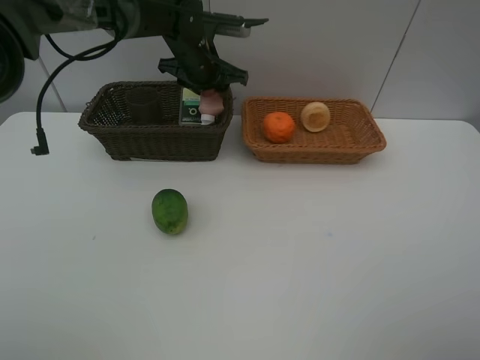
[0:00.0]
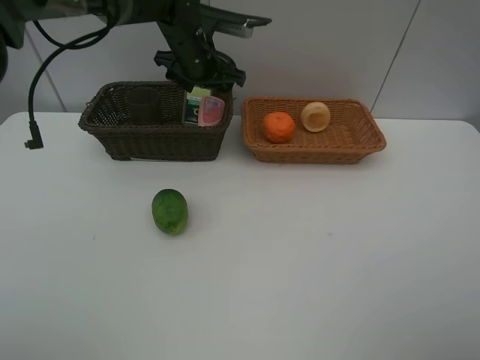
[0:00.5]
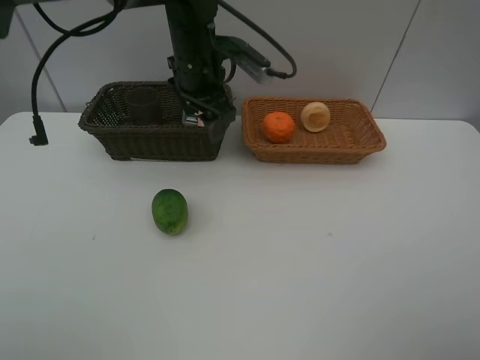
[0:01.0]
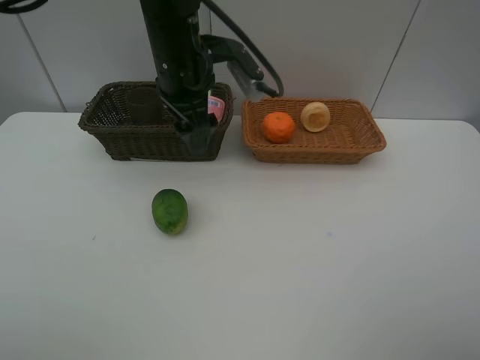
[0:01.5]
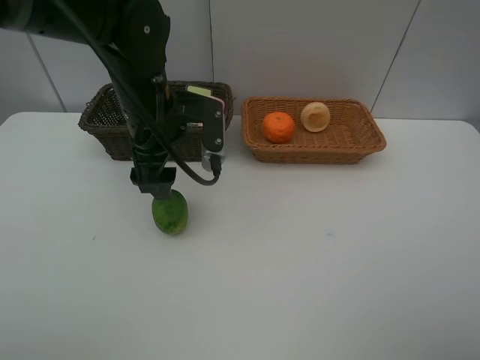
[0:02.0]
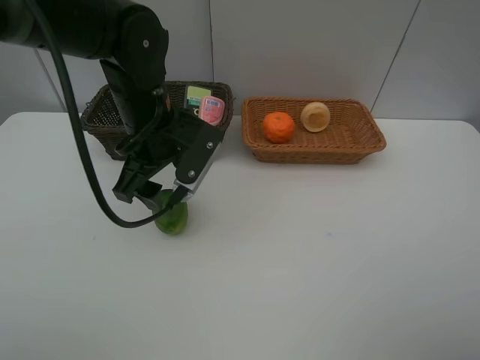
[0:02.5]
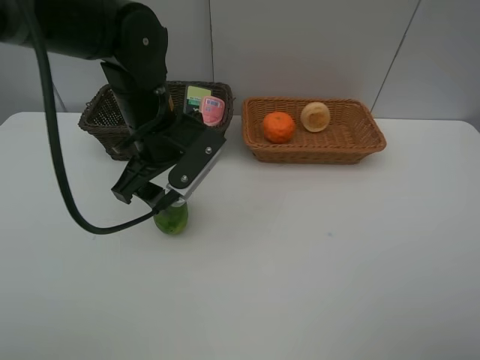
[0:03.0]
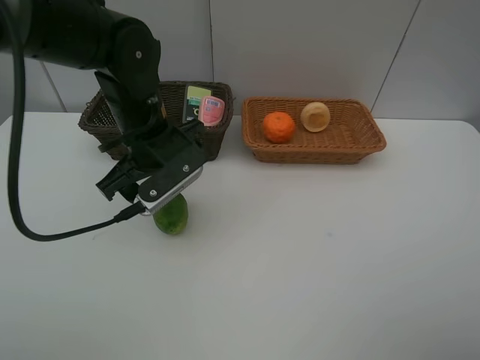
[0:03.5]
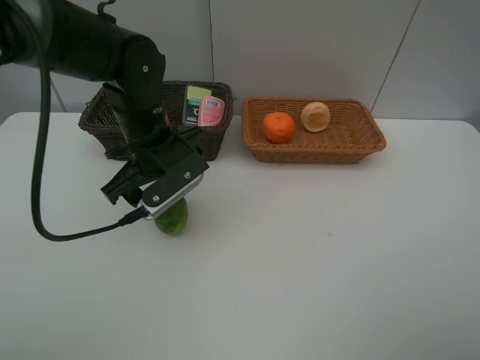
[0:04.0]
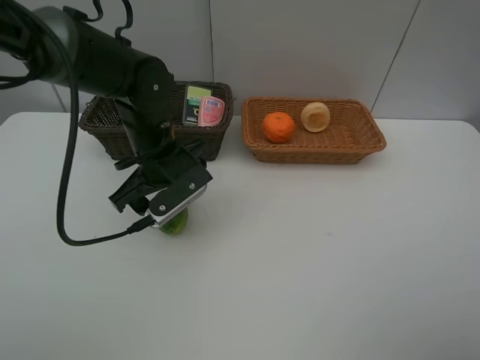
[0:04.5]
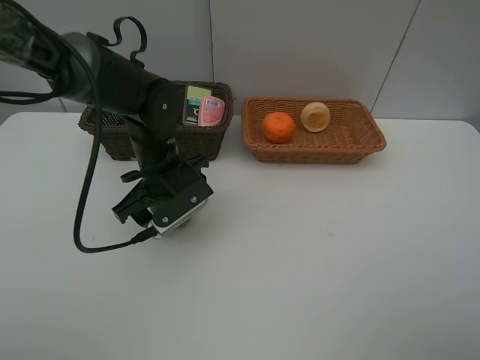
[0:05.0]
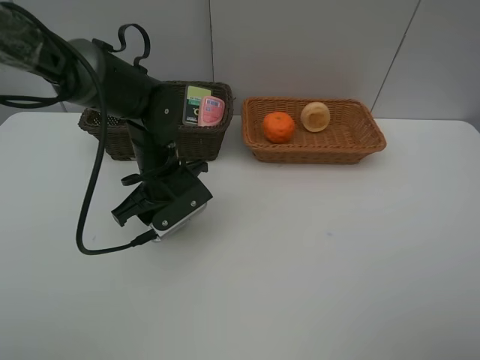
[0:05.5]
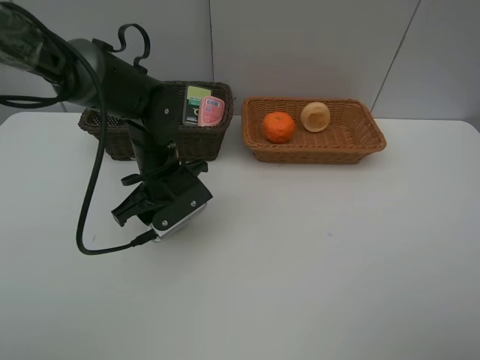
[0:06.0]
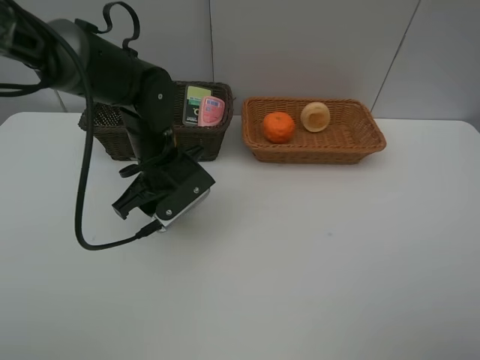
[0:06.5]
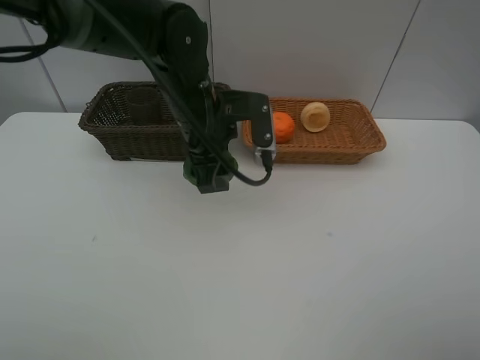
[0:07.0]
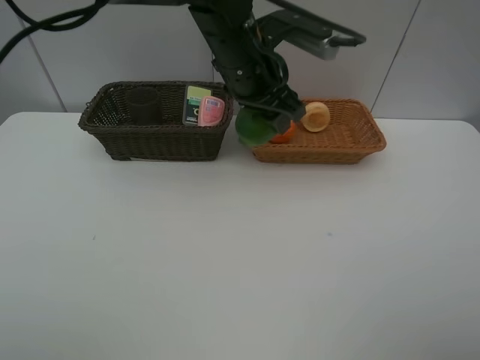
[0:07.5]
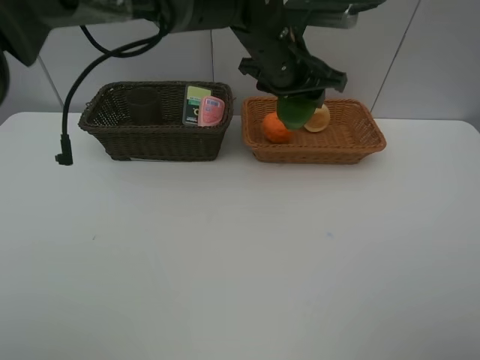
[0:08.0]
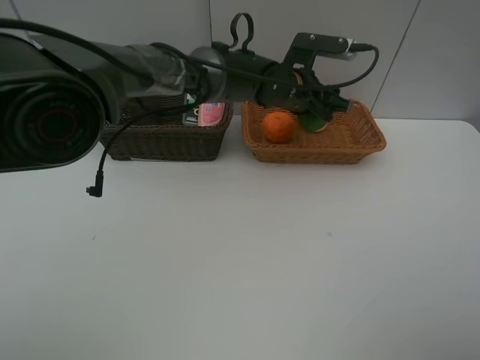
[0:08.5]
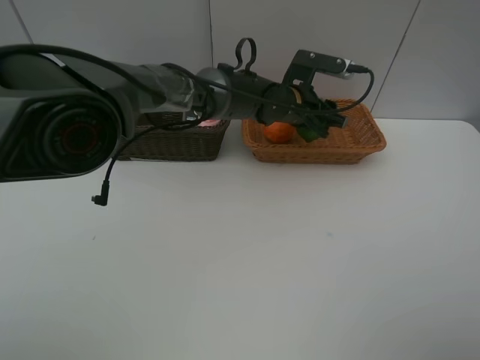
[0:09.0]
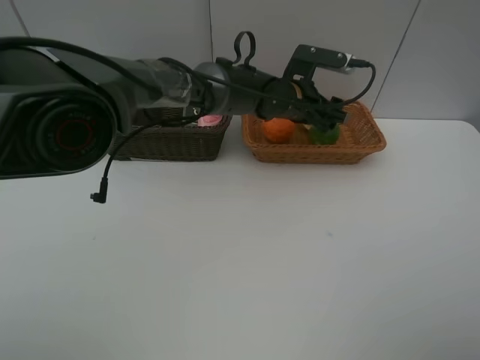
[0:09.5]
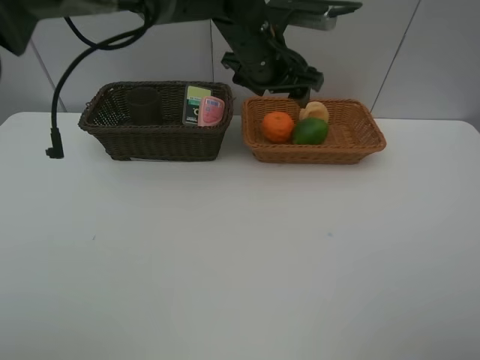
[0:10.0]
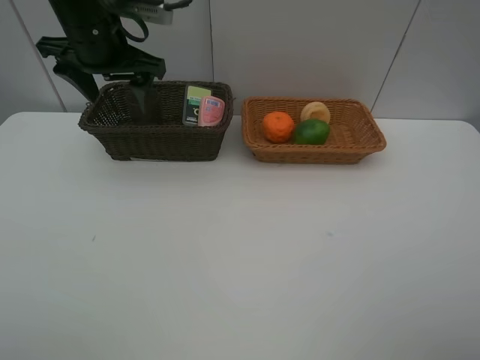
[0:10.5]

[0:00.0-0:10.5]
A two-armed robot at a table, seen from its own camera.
Task of the whole recording: place multiple objects separately in different baskets.
0:00.0 to 0:02.0: The left gripper heads backward, covering approximately 15 cm.
0:04.0 to 0:06.5: There are only small adjustments of the grippers.
0:06.5 to 0:08.5: The left gripper goes some 20 cm to the right and forward.
0:08.5 to 0:10.5: The left gripper heads to the left and upward, covering about 30 cm.

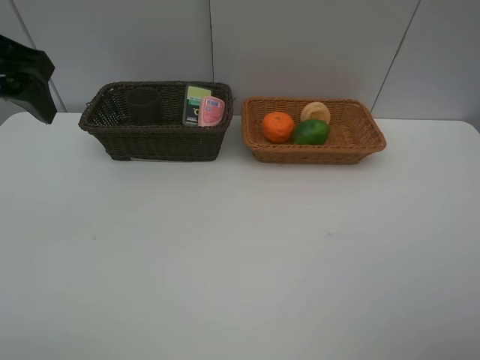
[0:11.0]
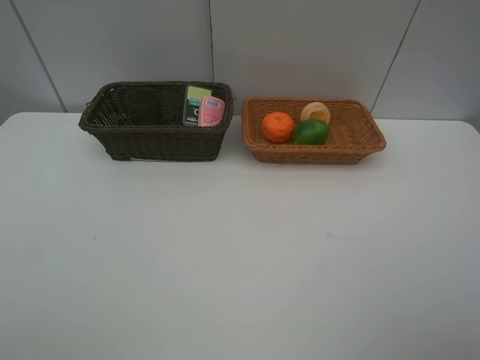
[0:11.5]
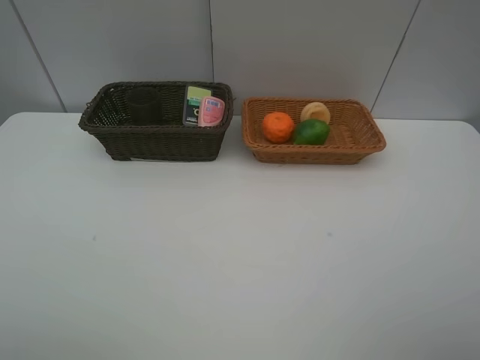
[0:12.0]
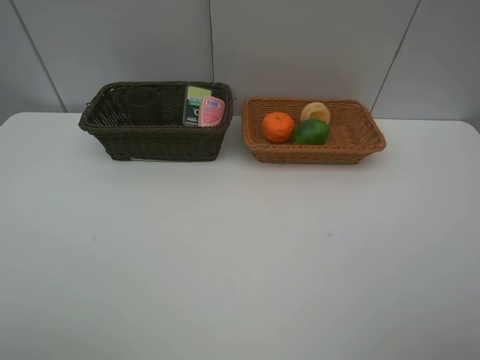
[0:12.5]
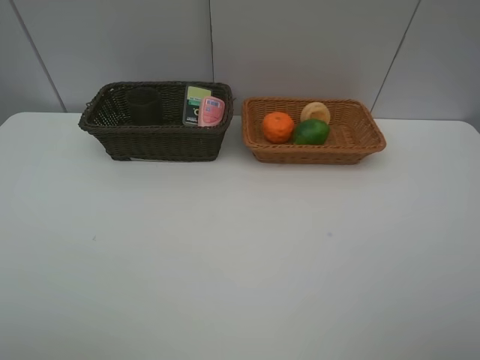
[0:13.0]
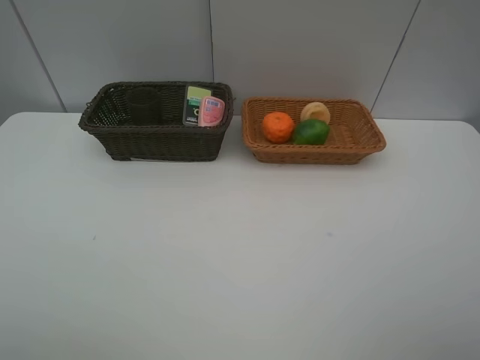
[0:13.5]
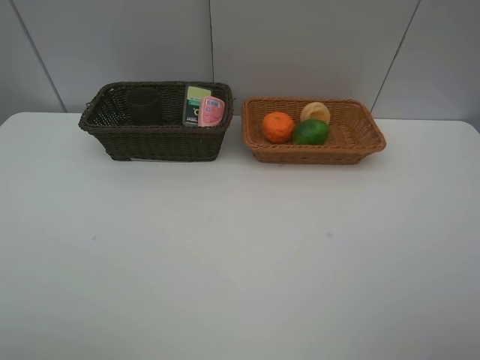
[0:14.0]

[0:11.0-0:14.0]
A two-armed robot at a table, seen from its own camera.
Task of the whole recording: place multiple objects separately in different baskets.
0:11.0 to 0:12.5: The left gripper shifts roughly 25 cm backward.

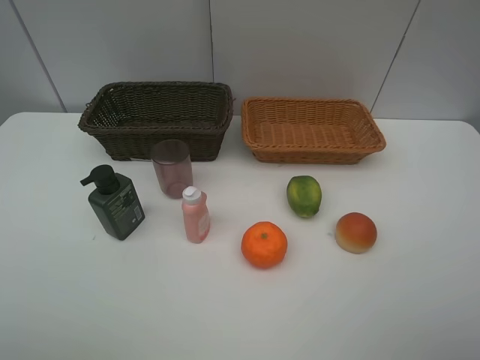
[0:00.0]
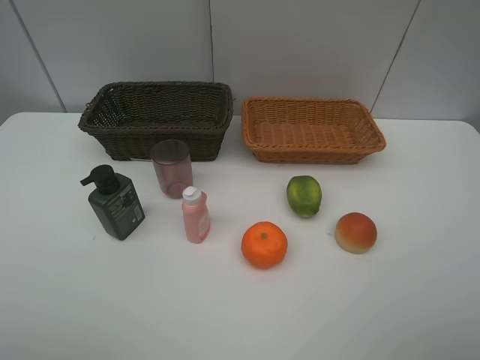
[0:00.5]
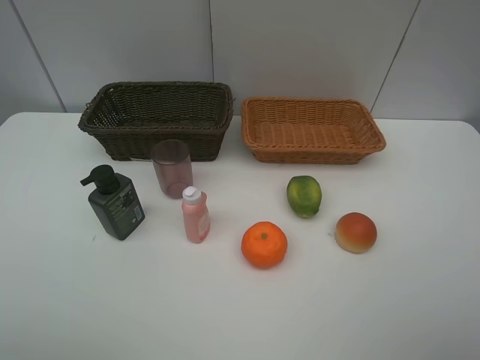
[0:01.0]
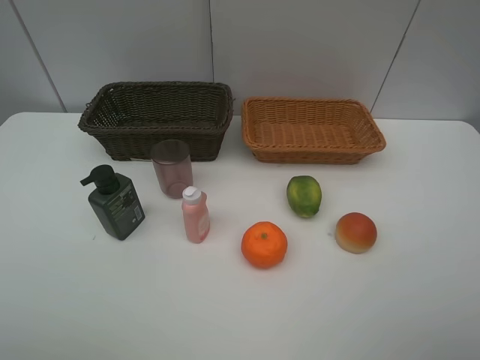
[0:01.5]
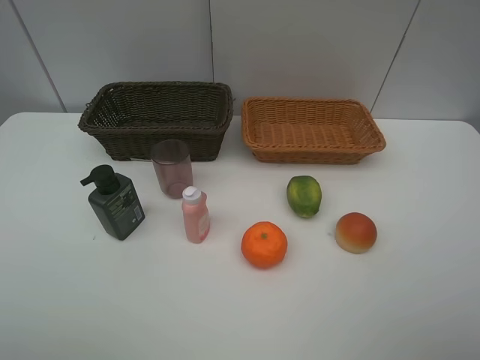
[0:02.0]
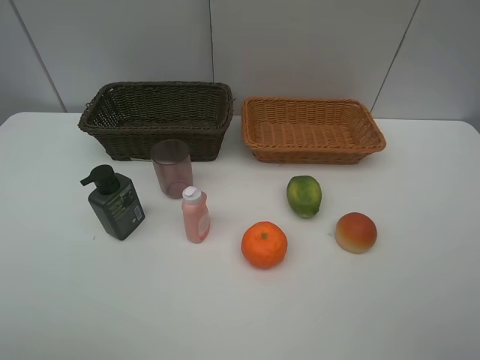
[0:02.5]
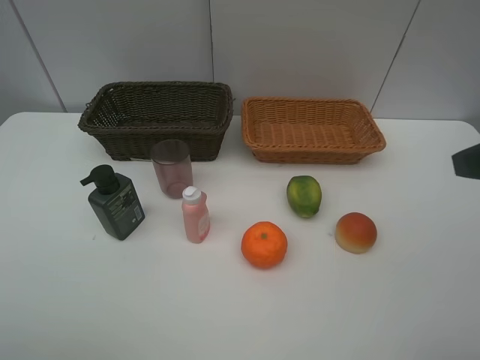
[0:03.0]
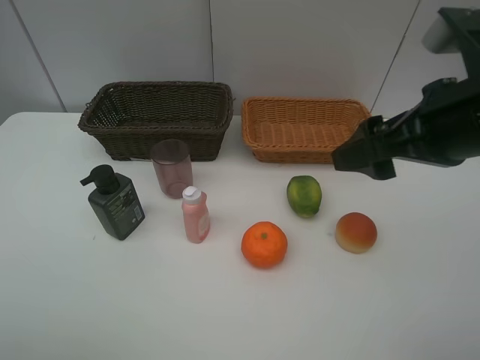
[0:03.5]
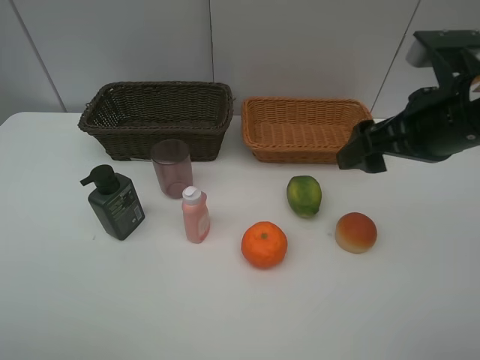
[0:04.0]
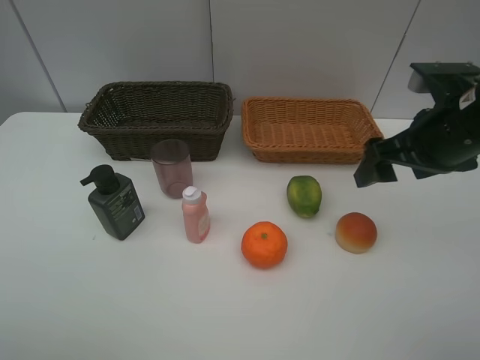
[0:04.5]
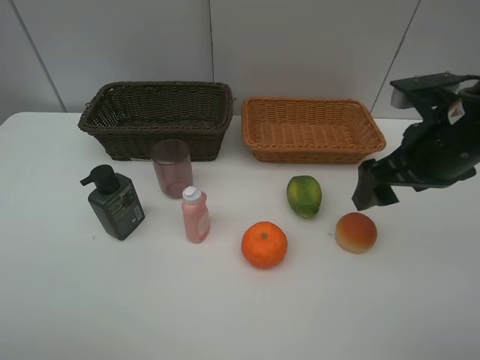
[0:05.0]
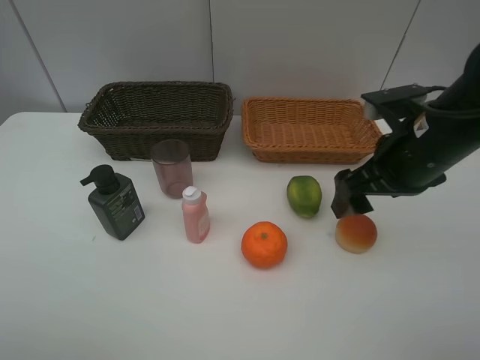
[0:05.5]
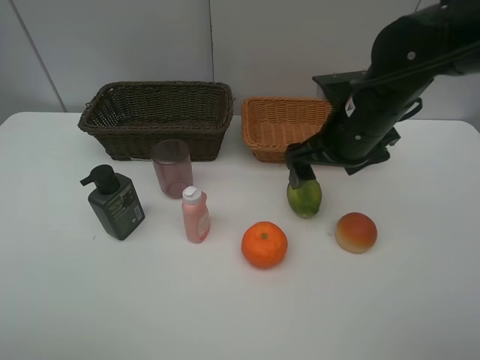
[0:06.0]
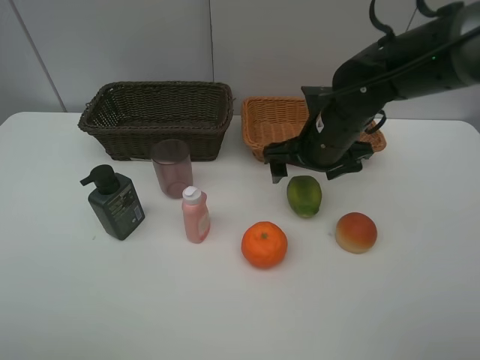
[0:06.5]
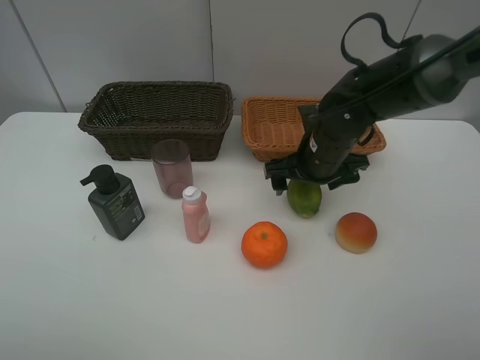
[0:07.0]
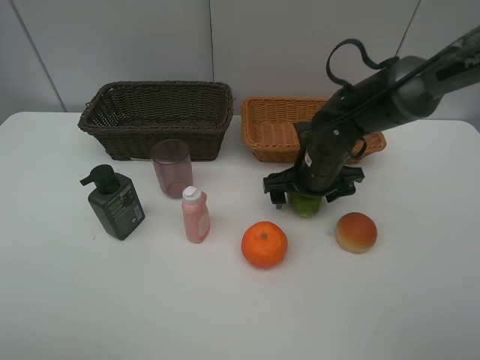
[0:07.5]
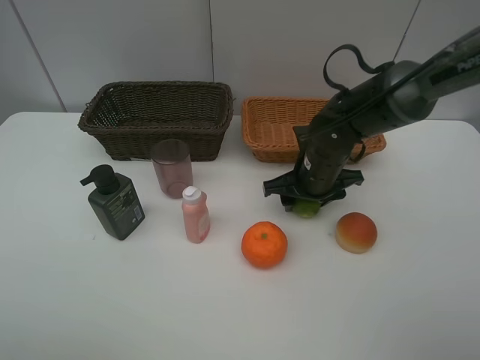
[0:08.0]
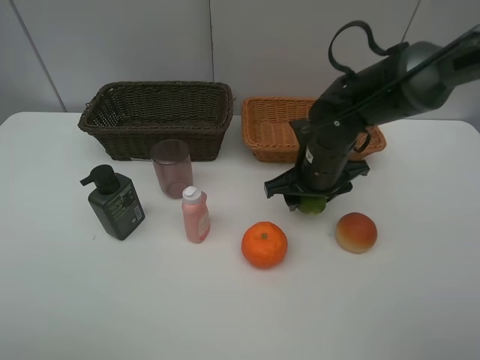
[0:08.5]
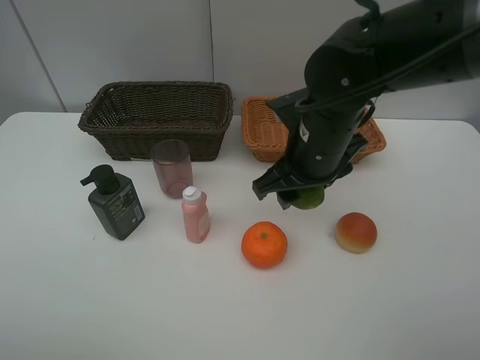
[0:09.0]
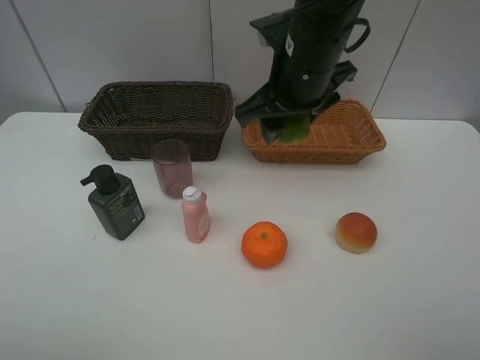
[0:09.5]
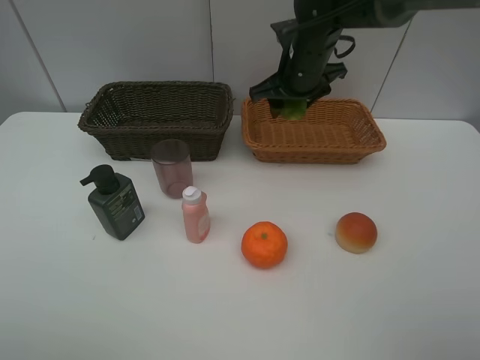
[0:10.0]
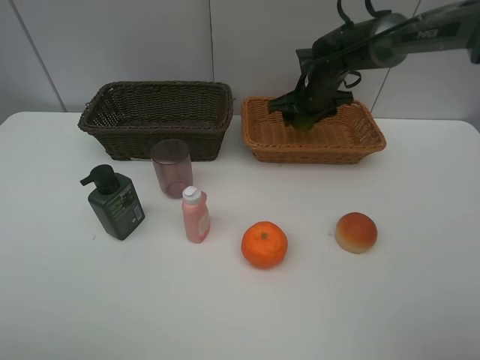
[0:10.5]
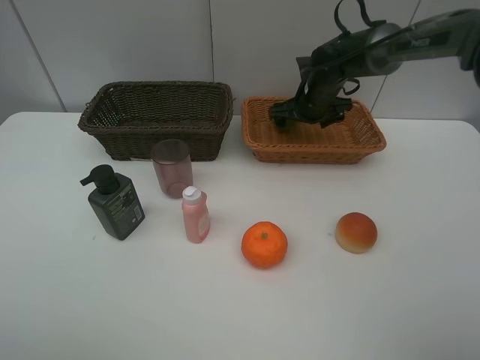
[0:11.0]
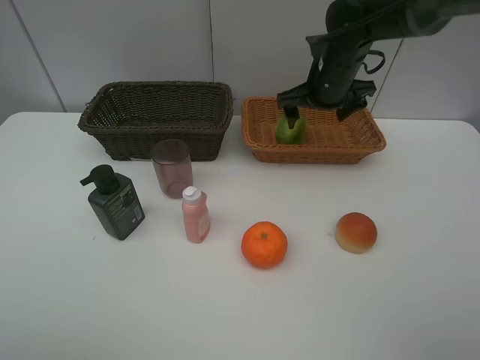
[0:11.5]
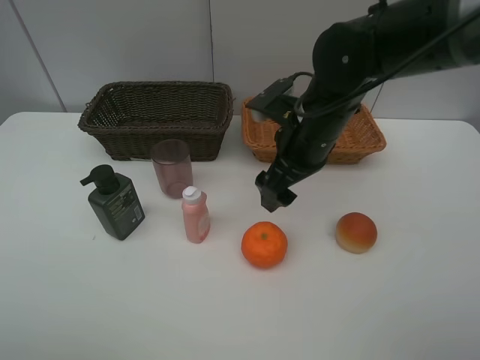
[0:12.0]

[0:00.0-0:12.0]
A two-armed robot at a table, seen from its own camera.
Task of the whole recording: place multiple objects separately in different baskets.
0:02.0 to 0:04.0: The right gripper moves forward and to the left, some 20 cm.
0:04.0 to 0:06.0: The right gripper goes approximately 10 cm forward, to the left and downward.
0:06.0 to 0:08.0: The right gripper goes some 10 cm downward, and closes up.
0:08.0 to 0:10.0: The right gripper travels upward and forward by some 15 cm.
0:10.0 to 0:12.0: The right gripper heads backward, covering about 15 cm, and opens.
